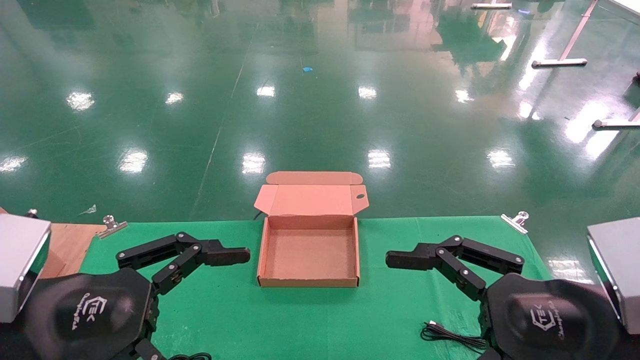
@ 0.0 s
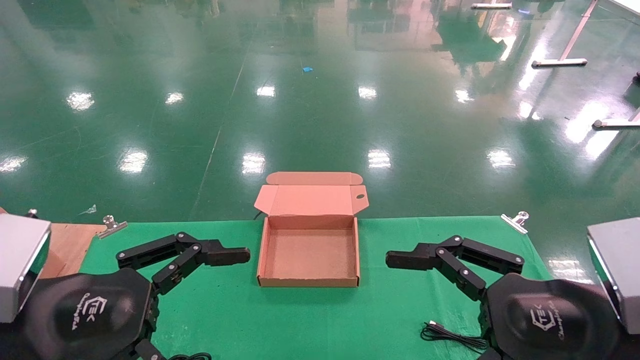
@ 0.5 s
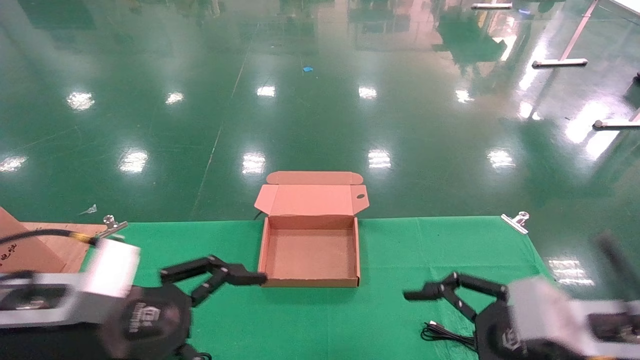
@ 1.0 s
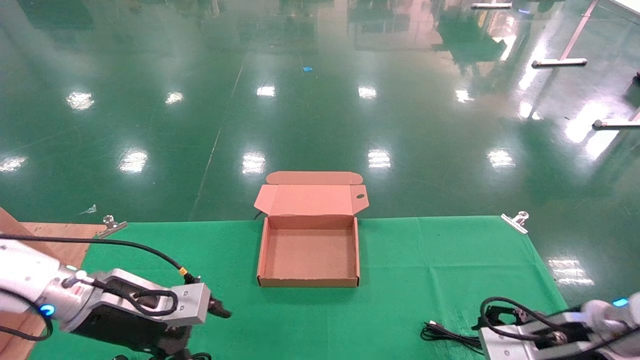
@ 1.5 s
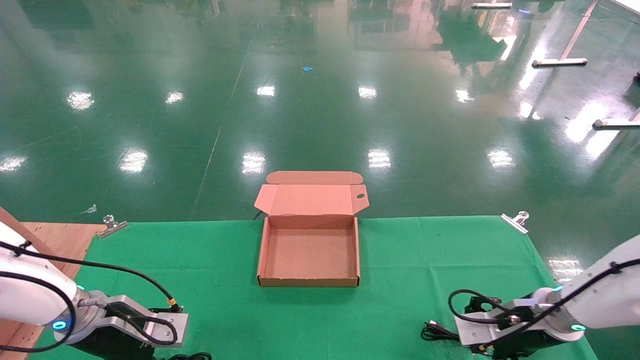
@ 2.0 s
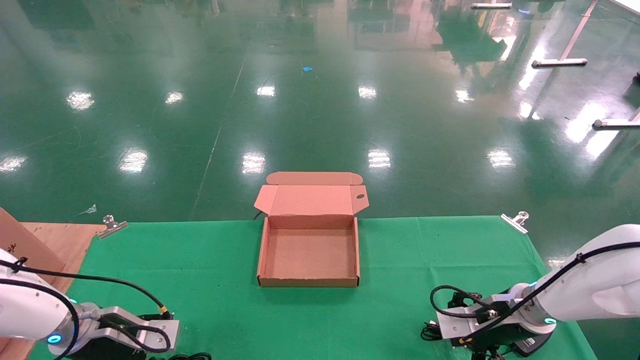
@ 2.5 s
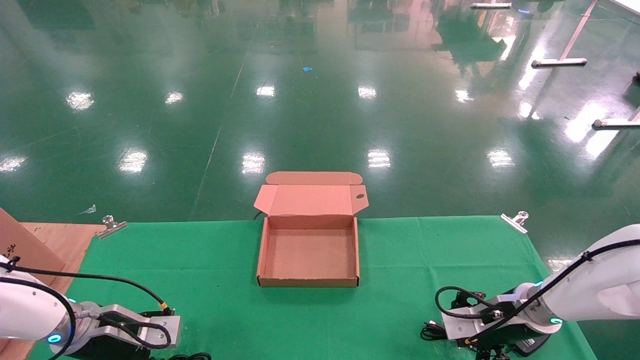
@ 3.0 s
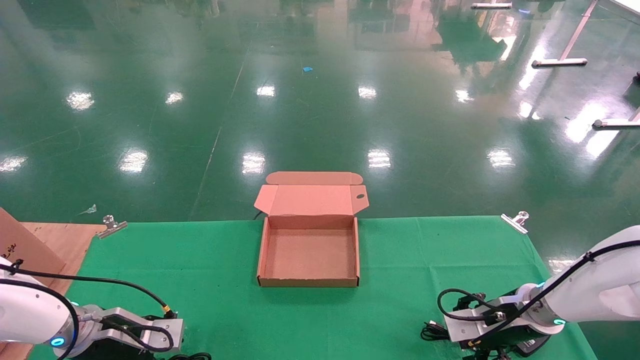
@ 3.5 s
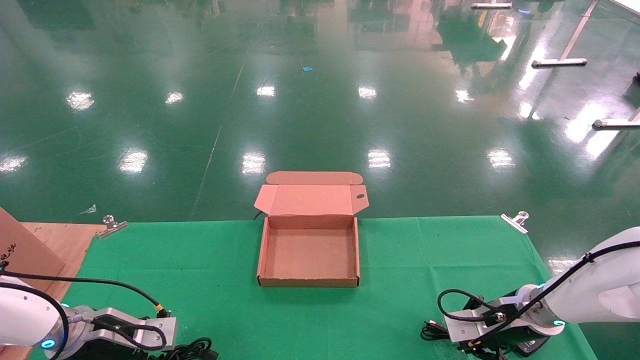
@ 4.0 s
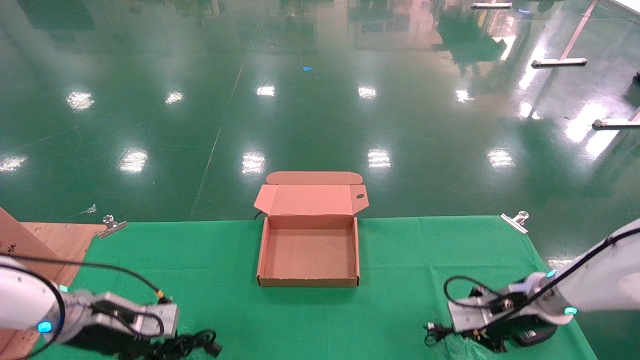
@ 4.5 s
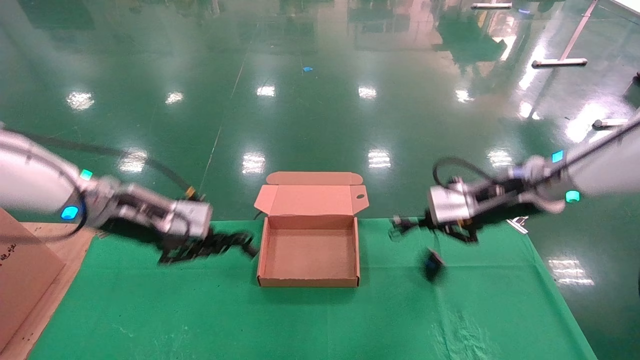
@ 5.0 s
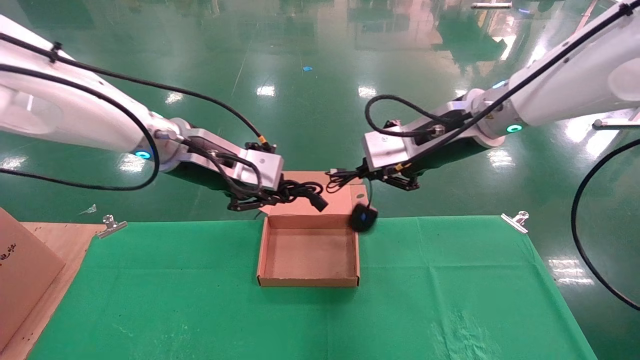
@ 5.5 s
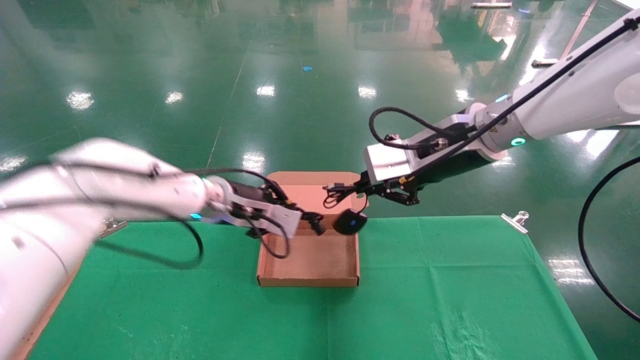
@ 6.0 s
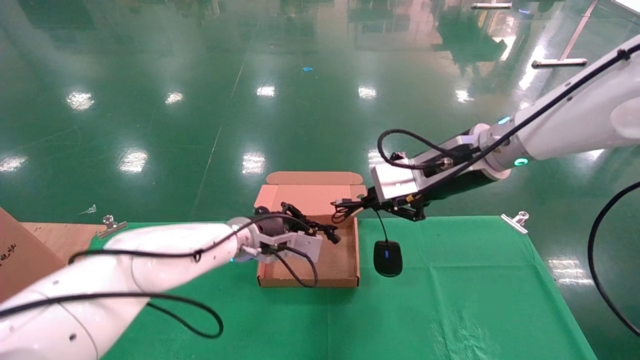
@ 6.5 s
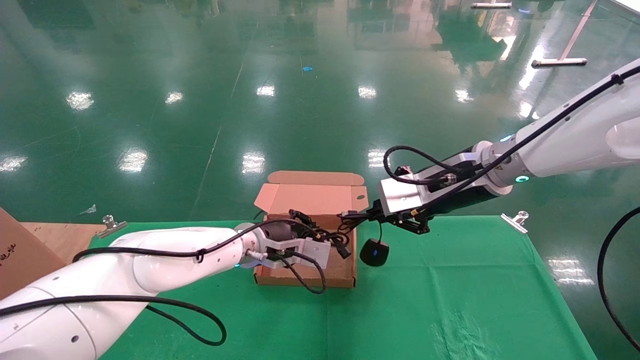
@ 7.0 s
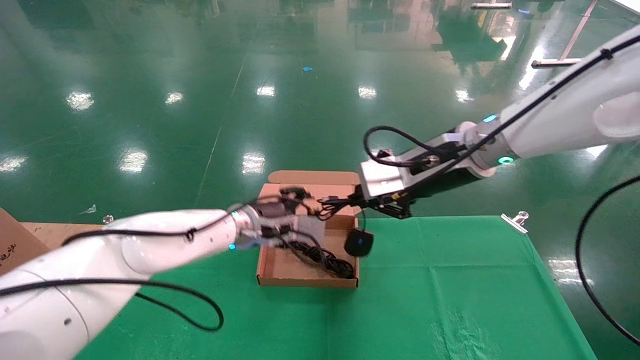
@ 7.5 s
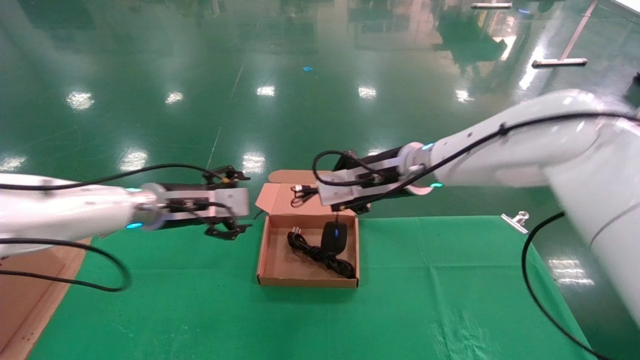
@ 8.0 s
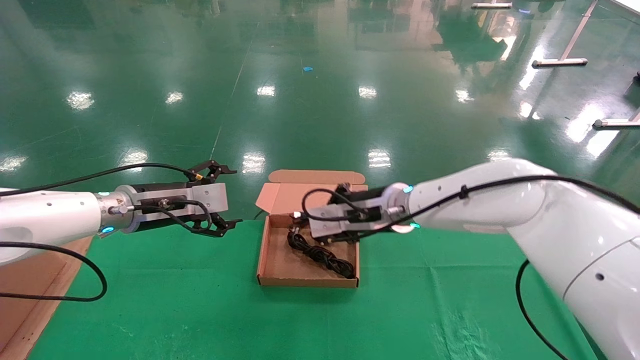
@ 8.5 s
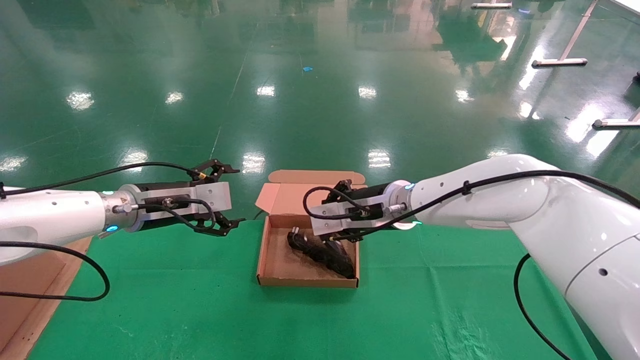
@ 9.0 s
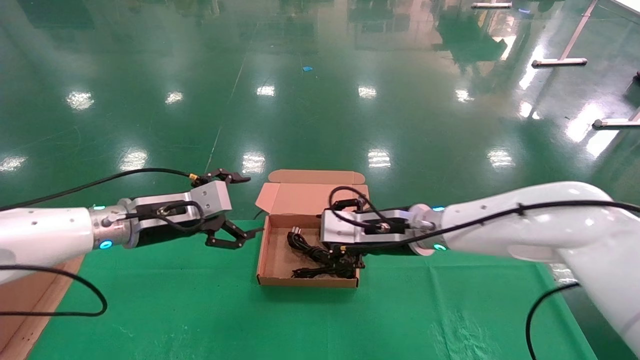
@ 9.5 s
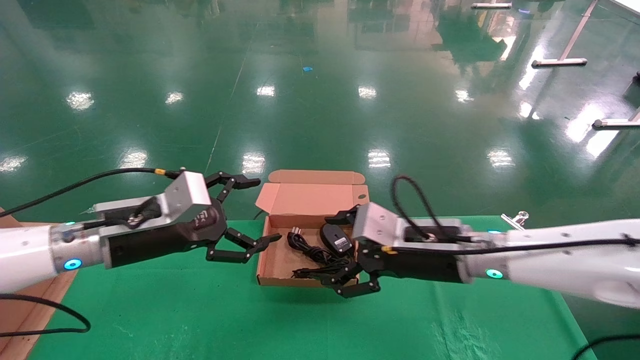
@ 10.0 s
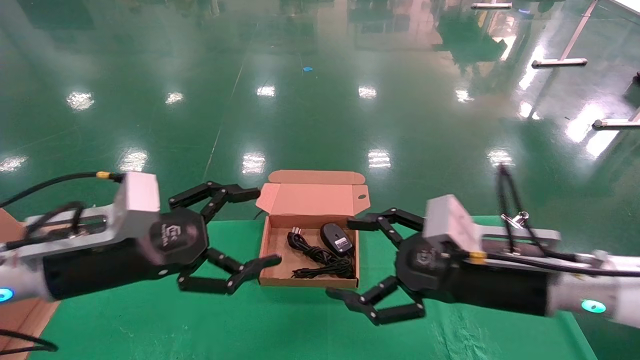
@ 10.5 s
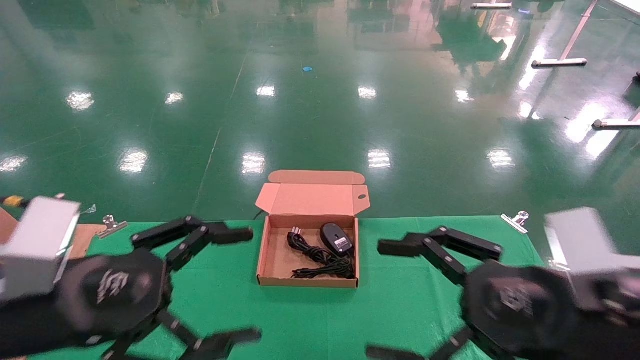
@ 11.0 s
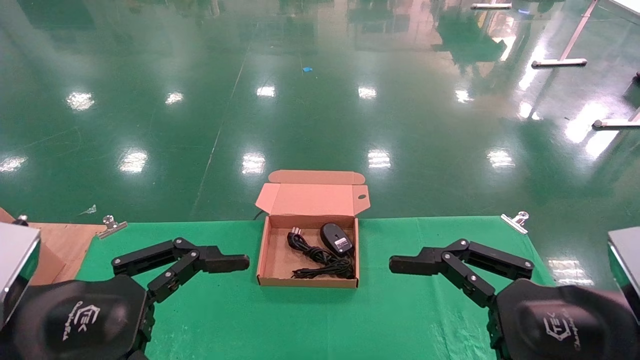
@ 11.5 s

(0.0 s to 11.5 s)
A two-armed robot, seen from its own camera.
Step, 1.5 s - 5.0 s: Grab and lift both the mouse and power cord from the accessory packaging area at the same time.
Step, 5.5 s - 10.0 s: Place the mouse and power cord into the box.
0.0 s - 2.0 s: Both grippers travel together forward and downward, roughly 25 cm.
2.0 s - 4.0 s: The left gripper closes; the right gripper closes.
4.0 s - 6.0 s: The left gripper goes roughly 25 cm to the right and upward; the right gripper goes roughly 30 cm upward and to the left.
6.0 s - 7.5 s: The left gripper opens its fingers.
7.5 s - 9.5 s: The right gripper travels downward by approximately 10 cm, and opens its fingers. The left gripper travels to the left and backward by about 15 cm, and opens.
9.5 s - 11.5 s: The right gripper shifts approximately 30 cm backward and to the right, and opens its fingers; the left gripper moves backward, about 25 cm.
